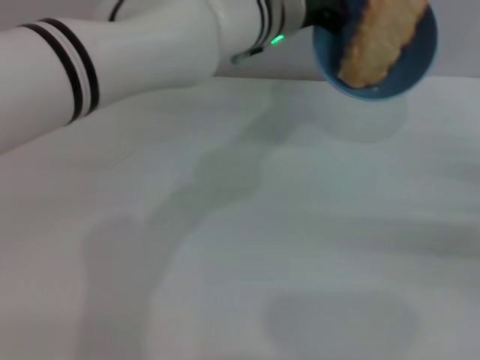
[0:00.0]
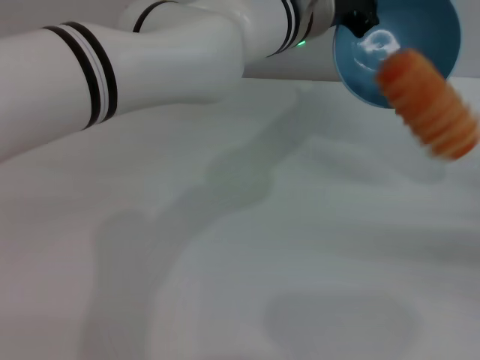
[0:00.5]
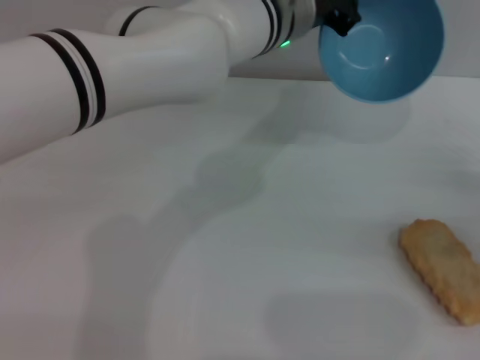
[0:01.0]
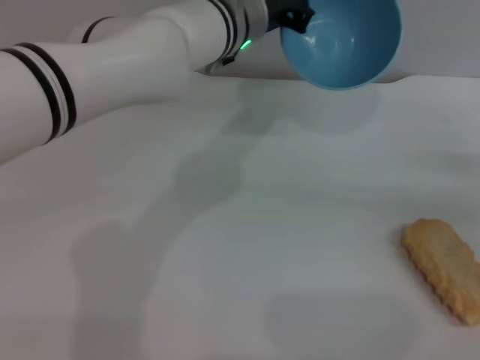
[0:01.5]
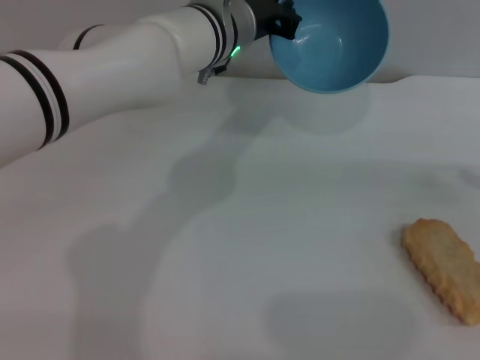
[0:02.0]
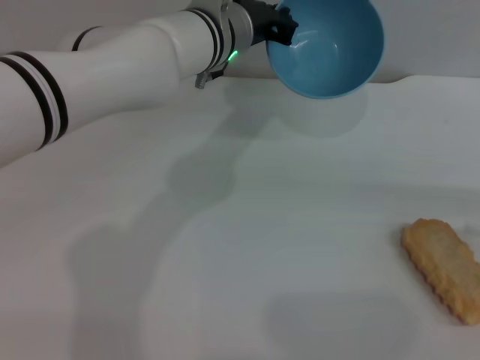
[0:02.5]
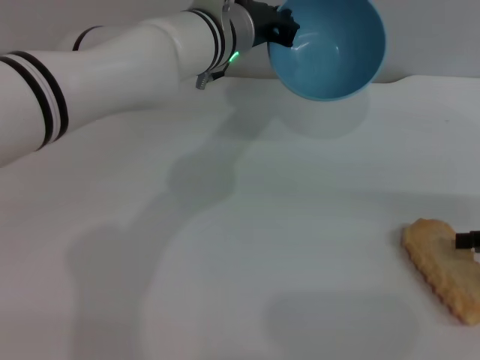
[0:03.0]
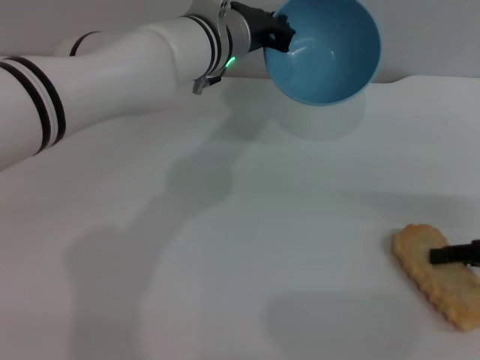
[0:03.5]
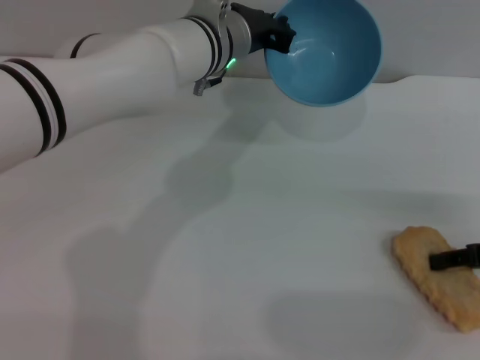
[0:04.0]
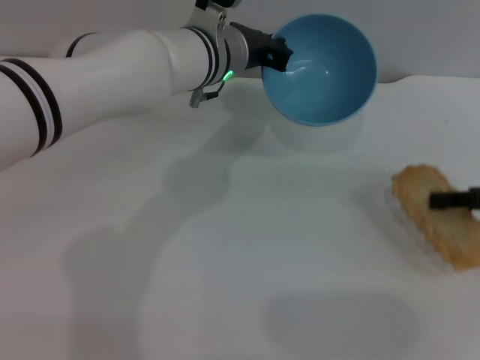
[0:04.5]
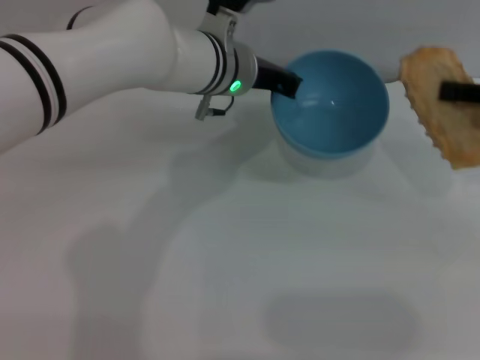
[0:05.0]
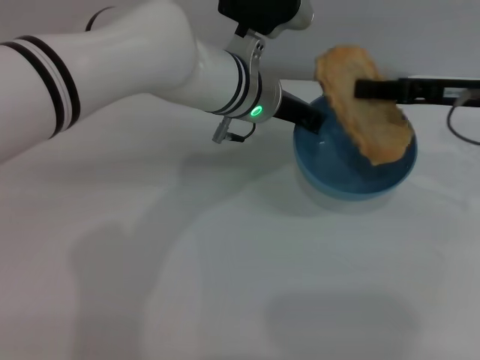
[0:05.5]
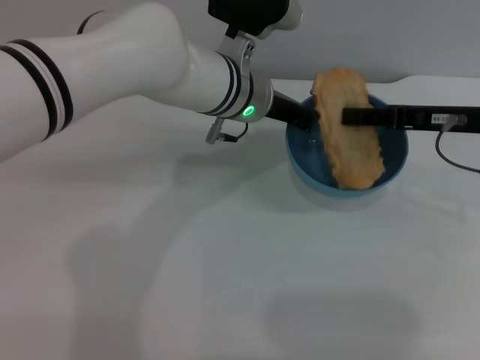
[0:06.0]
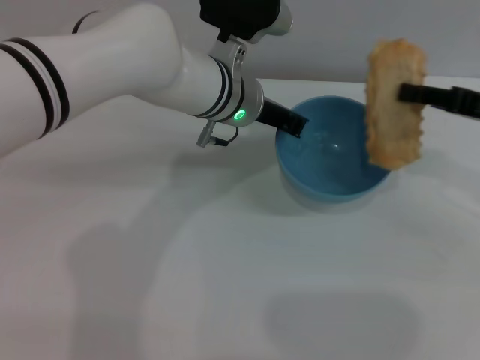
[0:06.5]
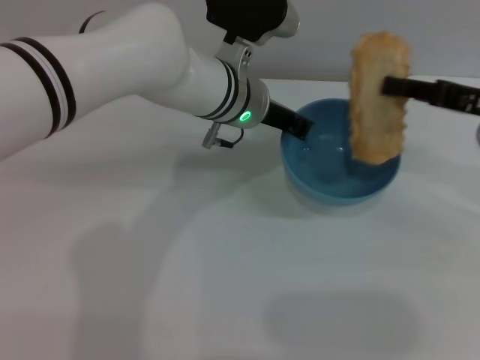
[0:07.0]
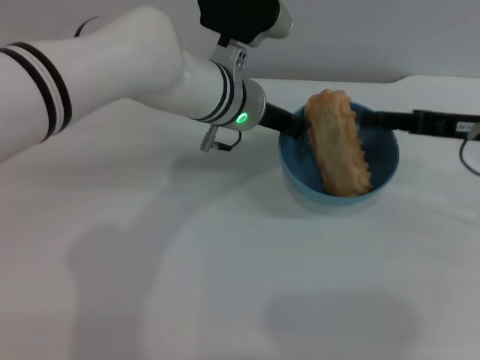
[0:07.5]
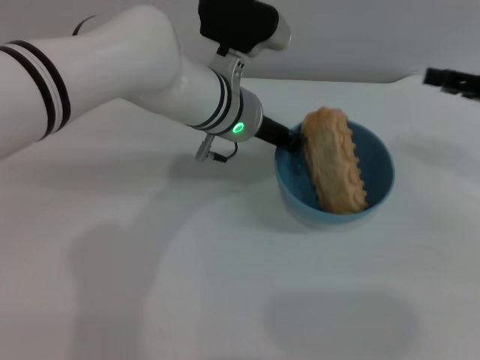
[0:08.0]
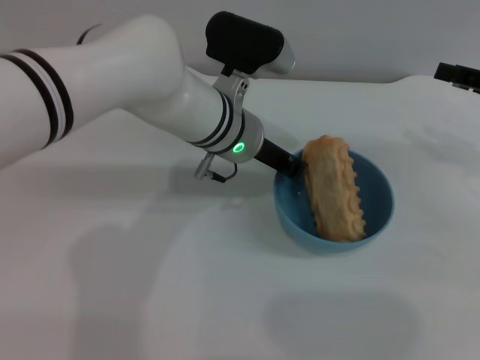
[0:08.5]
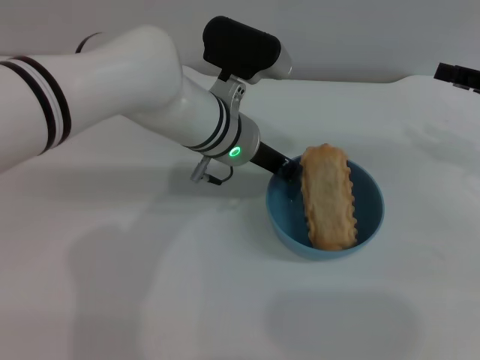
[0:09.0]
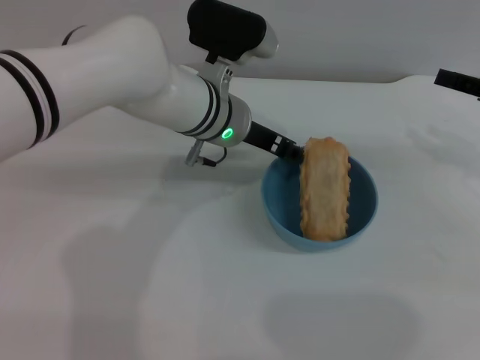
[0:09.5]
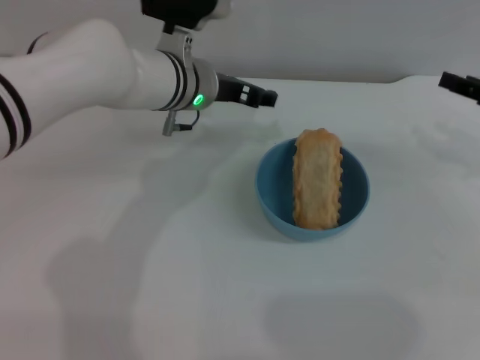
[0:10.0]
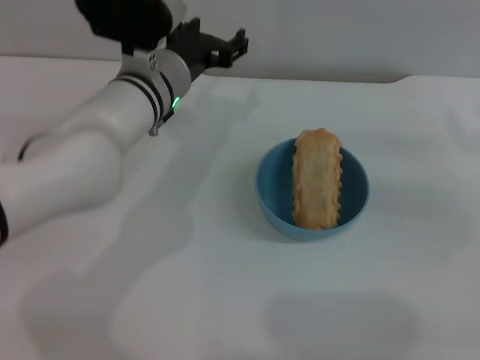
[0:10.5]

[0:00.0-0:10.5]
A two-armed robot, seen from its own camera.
Task of the whole recording: put the bread into the blue bowl and pour it out repeatedly.
Step, 0:01.0 to 0:04.5: Pick up the bread with the right gripper.
Step, 0:05.0 to 0:07.5: Place the bread into the bowl.
Step, 0:08.0 to 0:10.0: Place the bowl on the table.
0:00.0 to 0:02.0: The right gripper shifts by approximately 5 cm.
0:02.0 to 0:04.0: The right gripper ends up approximately 5 cm from where it was.
0:04.0 to 0:06.5: The right gripper goes about 5 cm upward.
0:06.5 to 0:08.5: The right gripper opens.
0:08.5 to 0:10.5: The right gripper heads downward, covering about 5 cm, while the left gripper goes about 5 cm to the left, and opens up.
